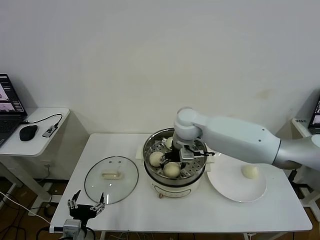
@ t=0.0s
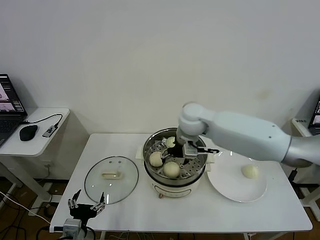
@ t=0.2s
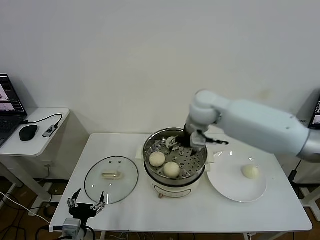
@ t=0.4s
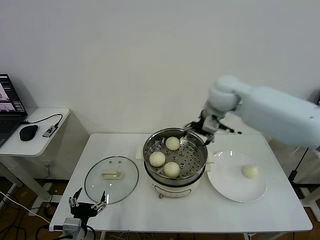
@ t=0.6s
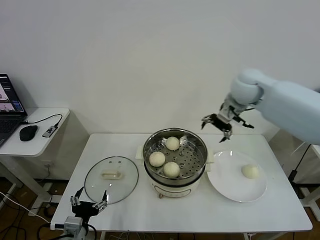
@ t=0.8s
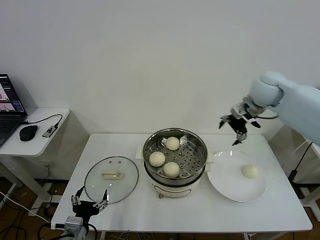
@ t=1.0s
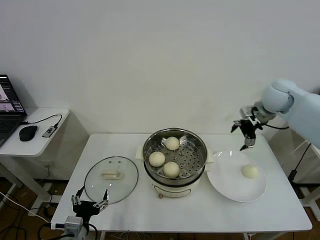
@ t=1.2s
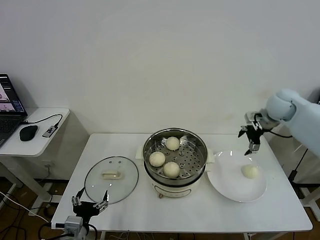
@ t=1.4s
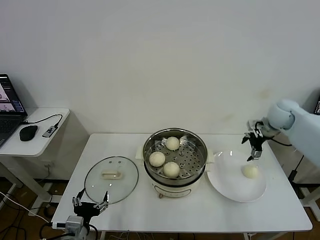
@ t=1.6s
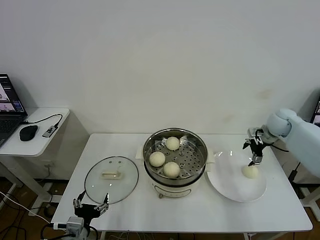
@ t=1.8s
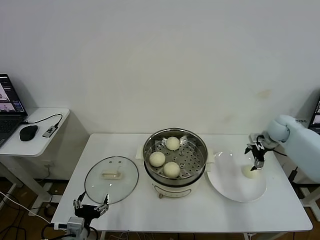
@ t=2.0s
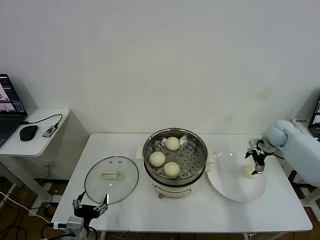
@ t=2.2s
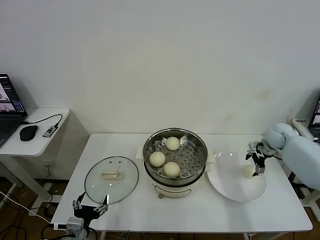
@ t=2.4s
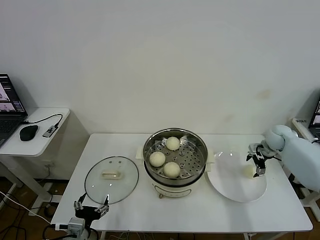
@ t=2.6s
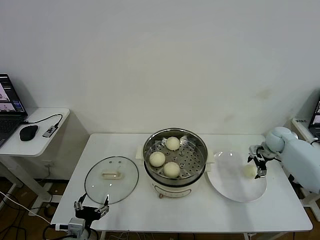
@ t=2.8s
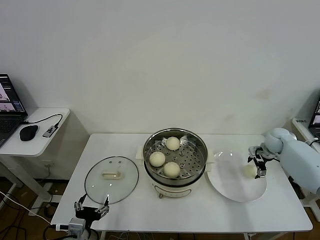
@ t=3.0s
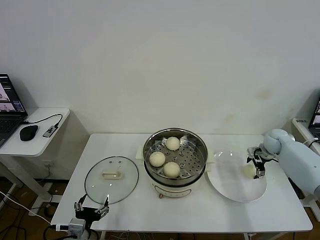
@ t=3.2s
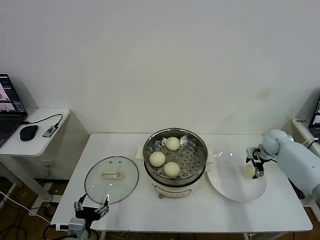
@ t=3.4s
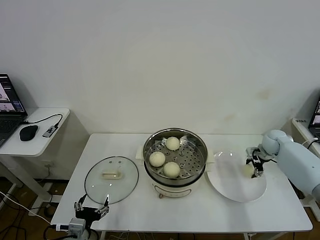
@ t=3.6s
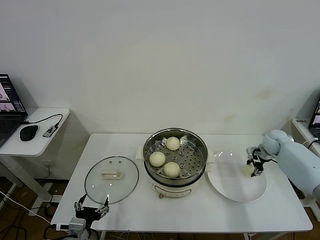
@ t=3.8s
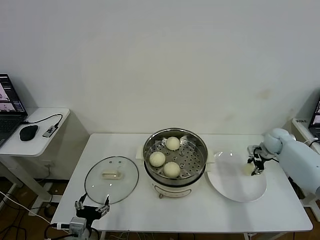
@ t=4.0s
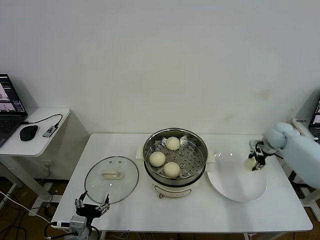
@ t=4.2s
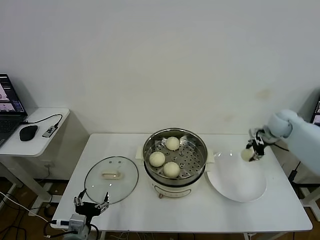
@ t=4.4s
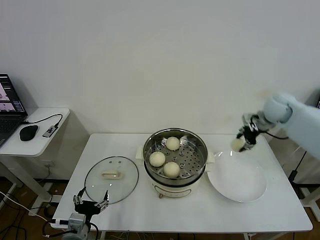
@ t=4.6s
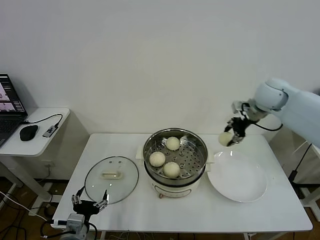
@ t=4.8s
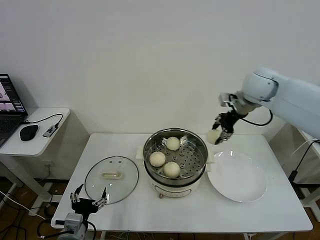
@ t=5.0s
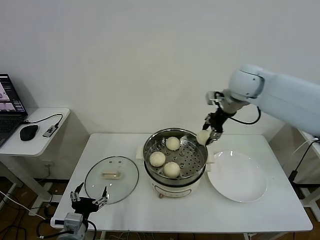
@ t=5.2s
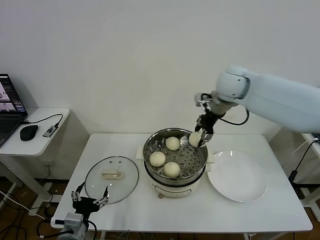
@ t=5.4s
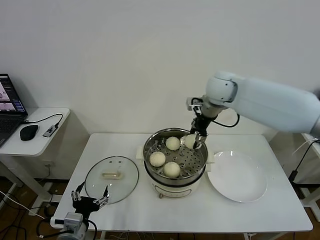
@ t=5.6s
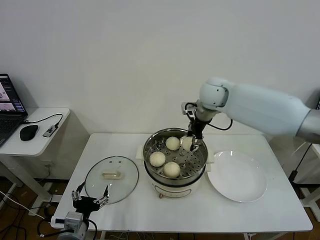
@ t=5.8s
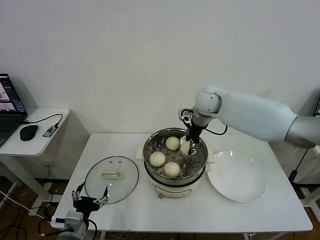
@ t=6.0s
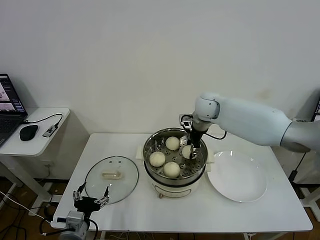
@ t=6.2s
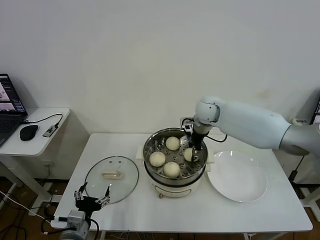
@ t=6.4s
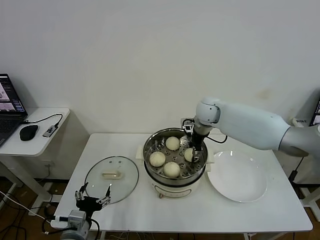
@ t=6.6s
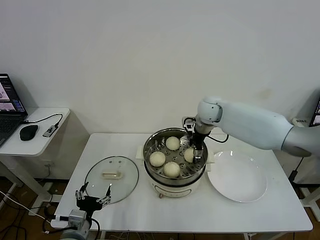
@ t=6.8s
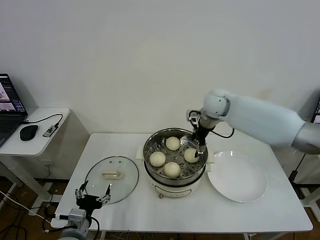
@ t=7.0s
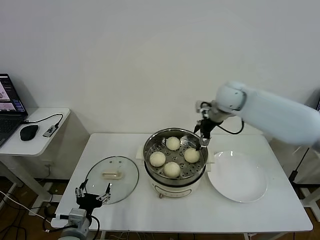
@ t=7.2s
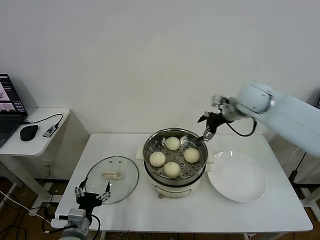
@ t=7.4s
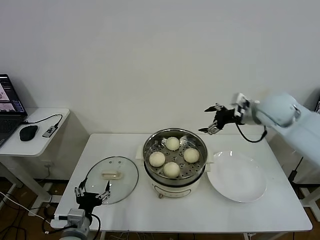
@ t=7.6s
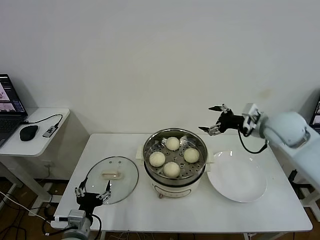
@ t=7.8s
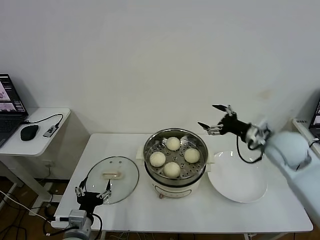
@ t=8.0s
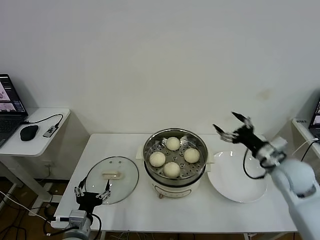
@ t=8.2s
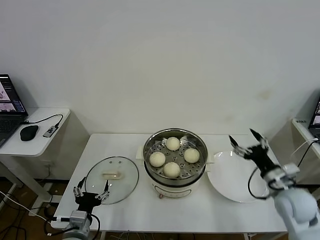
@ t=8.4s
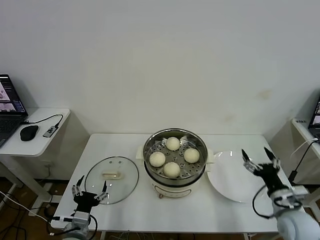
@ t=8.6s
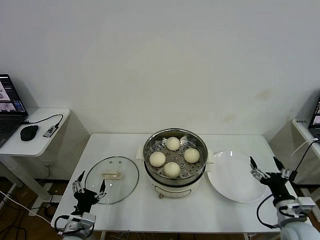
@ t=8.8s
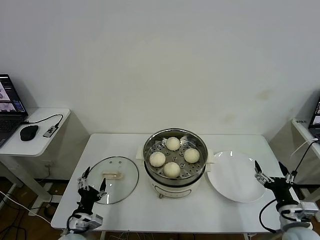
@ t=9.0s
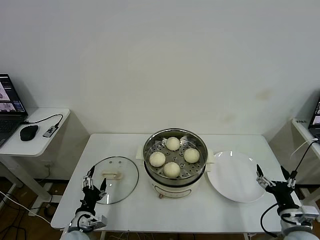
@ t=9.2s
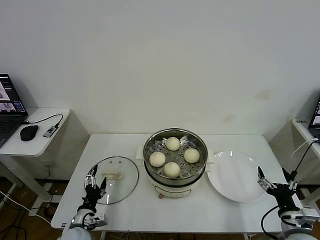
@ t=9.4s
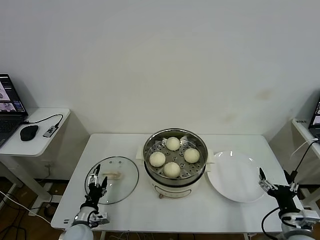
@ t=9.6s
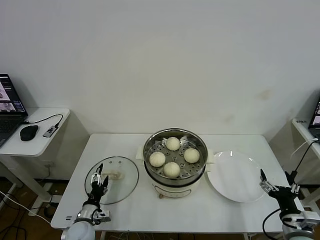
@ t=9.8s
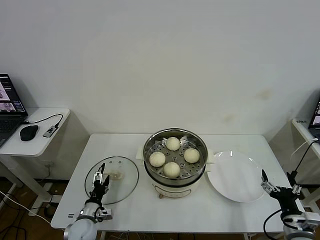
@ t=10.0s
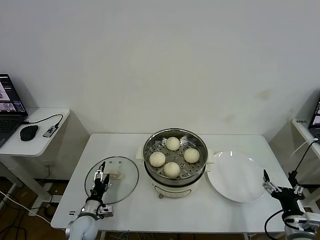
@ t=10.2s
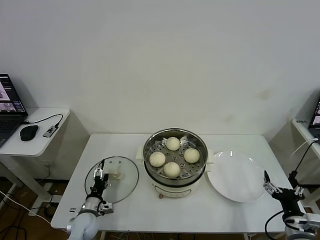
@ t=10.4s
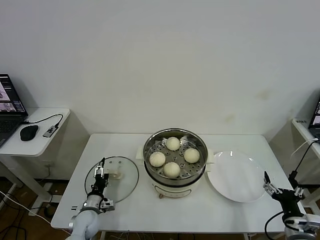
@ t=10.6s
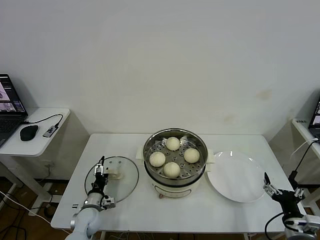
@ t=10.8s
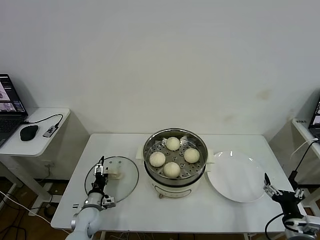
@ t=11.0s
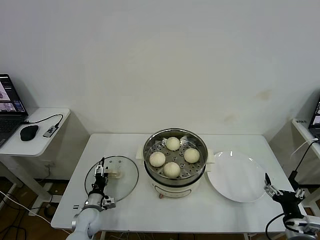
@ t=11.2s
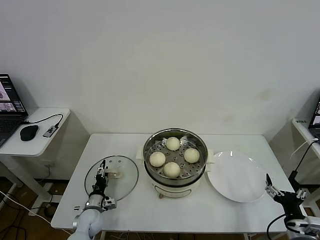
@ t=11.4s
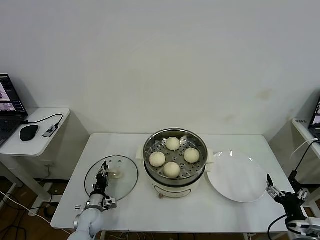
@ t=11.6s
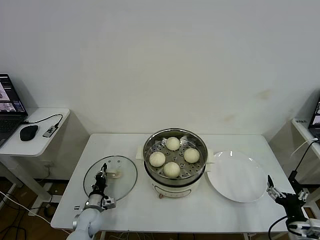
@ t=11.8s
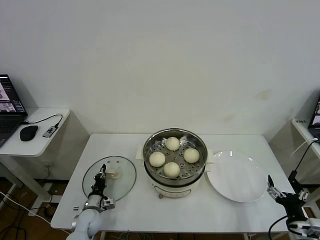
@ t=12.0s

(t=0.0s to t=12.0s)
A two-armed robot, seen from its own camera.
Task of the whole recording: take steamed baozi put them in steamer then cover it.
Step, t=0.4s - t=4.0s: Grasp the baozi in the plate with right gripper.
Step, t=4.2s - t=7.0s: Place the baozi on the steamer with right gripper.
t=0.0s - t=1.6s: The right gripper moves to the right, approximately 35 cm.
t=1.6s - t=3.0s: The right gripper heads downward, covering approximately 15 cm.
t=3.0s - t=4.4s: The right gripper travels upward by about 10 cm, and closes up.
t=4.4s - t=6.0s: The right gripper shifts roughly 25 cm to the left.
t=6.0s - t=7.6s: The right gripper is displaced to the right and backward by about 20 cm, and opens.
t=7.6s - t=9.0s: The right gripper goes about 35 cm backward and downward.
t=9.0s - t=10.4s: The left gripper moves forward and downward, about 15 cm.
t=10.4s - t=12.0s: The left gripper closes its fingers.

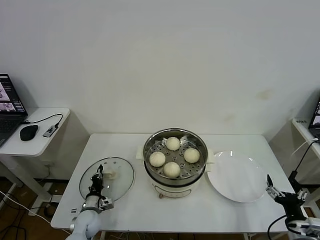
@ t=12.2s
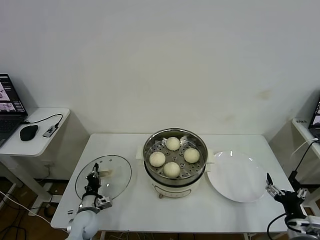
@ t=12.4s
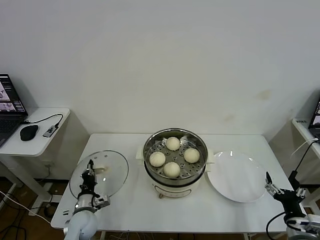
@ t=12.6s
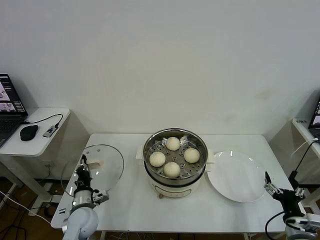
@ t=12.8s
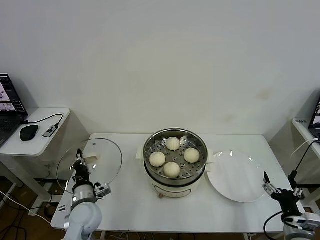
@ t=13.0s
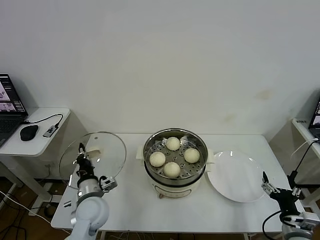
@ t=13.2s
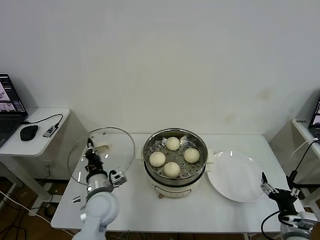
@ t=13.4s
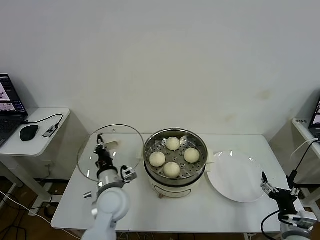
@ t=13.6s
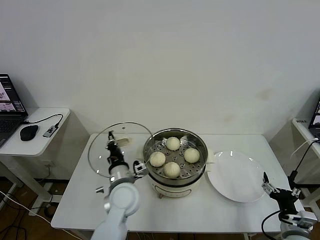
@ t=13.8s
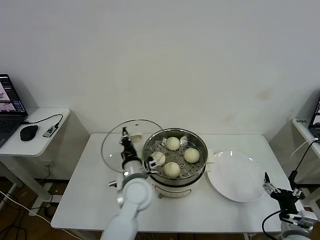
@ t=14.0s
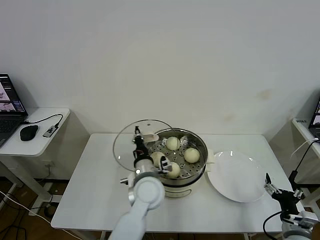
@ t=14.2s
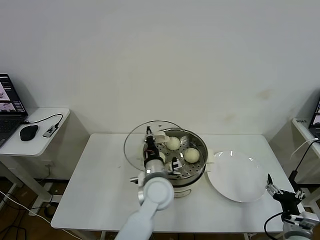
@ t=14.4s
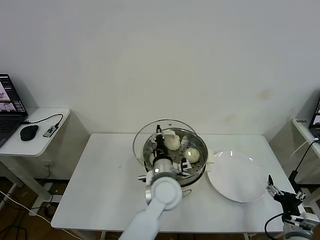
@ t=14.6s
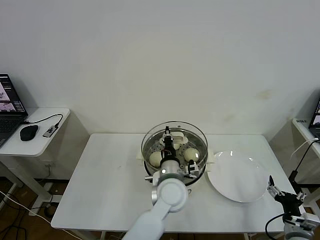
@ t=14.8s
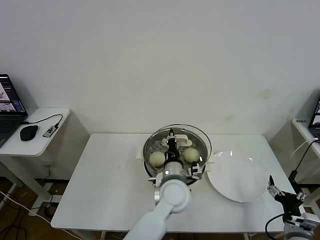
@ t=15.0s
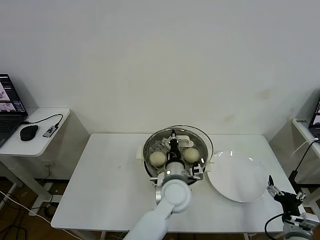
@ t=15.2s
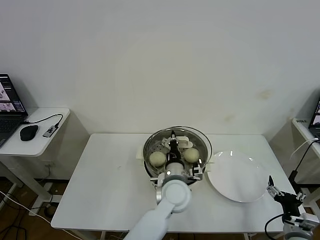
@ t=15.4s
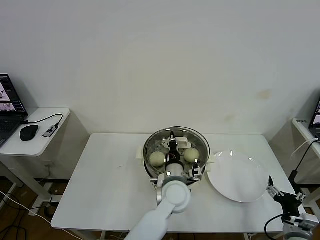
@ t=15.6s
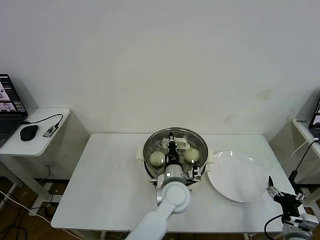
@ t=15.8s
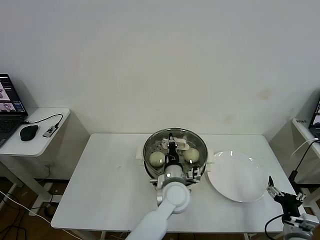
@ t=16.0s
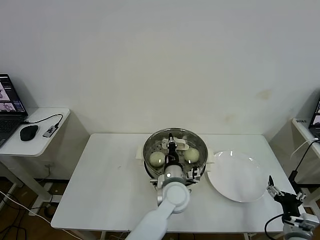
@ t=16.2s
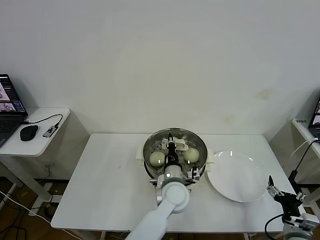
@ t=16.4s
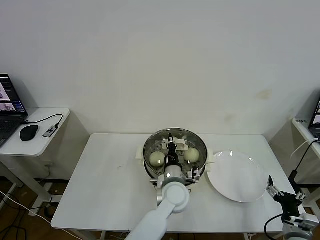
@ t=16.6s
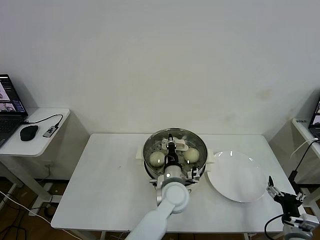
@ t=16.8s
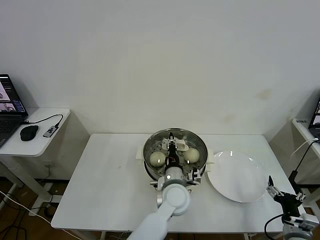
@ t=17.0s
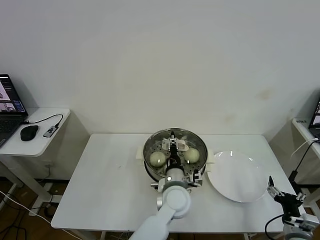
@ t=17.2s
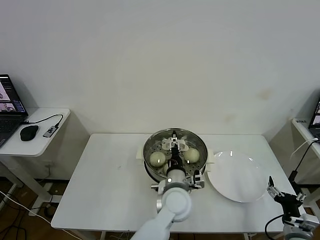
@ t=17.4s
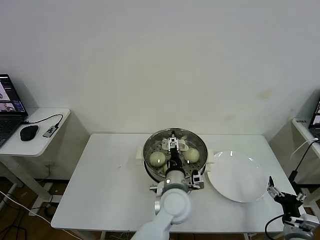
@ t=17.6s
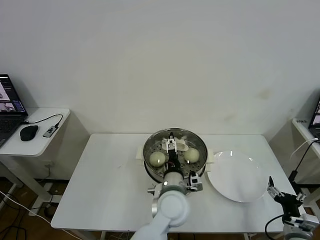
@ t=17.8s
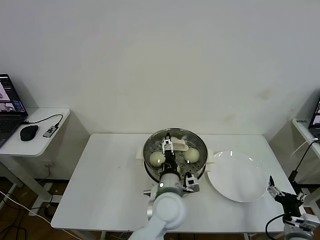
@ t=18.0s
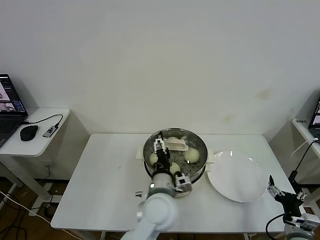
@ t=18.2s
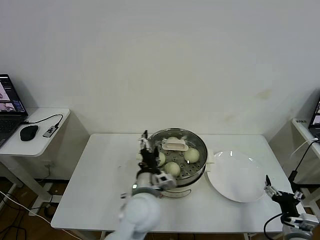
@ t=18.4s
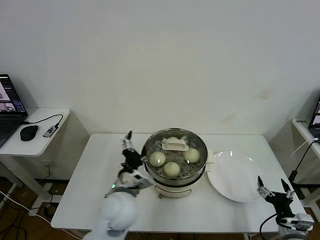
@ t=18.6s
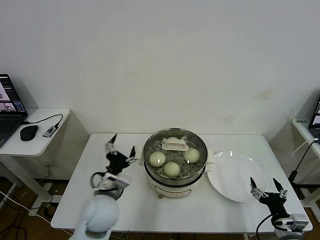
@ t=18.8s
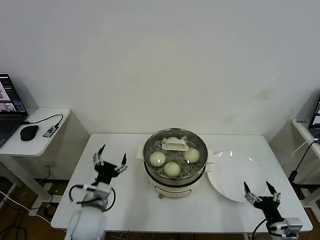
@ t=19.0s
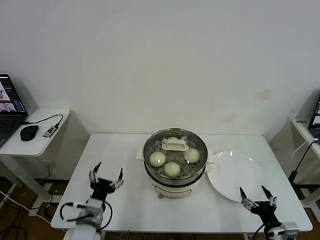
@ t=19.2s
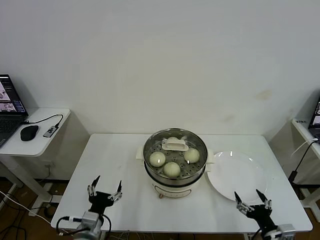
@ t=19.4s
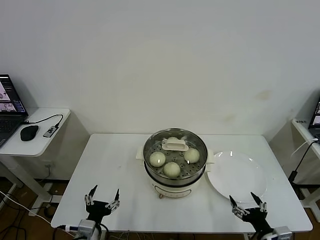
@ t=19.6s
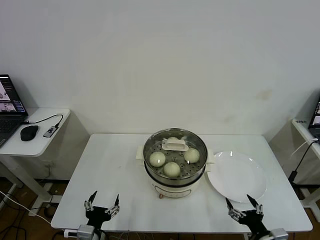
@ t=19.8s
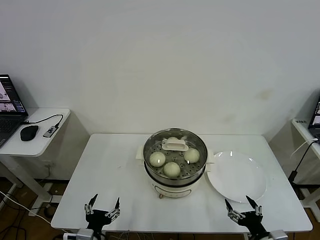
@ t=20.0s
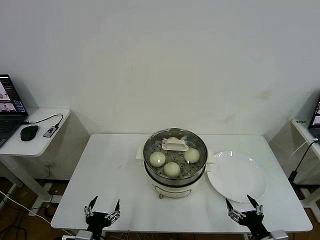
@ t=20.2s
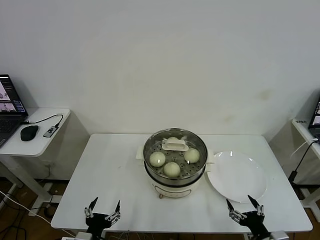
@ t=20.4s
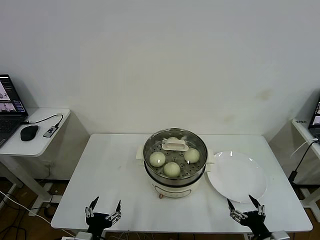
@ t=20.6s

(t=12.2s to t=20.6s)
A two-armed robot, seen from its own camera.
Task of the whole recording: take steamed baozi put them in steamer then cover it.
Step, t=12.6s - t=17.8s: Place the pot lid on the steamer with left gripper.
t=12.2s - t=13.6s: The left gripper is displaced upward and to the right by some 25 cm.
t=13.6s - t=15.0s: The left gripper moves to the right, about 20 cm.
t=15.0s - t=16.4s: The grippers stay close to where they were, moving slightly.
t=16.4s - t=17.8s: The left gripper ends up roughly 5 cm from where it was, and opens up.
t=17.8s - t=19.2s: The left gripper moves to the left, some 25 cm.
t=19.2s - t=20.6s: The left gripper moves backward, roughly 10 cm.
